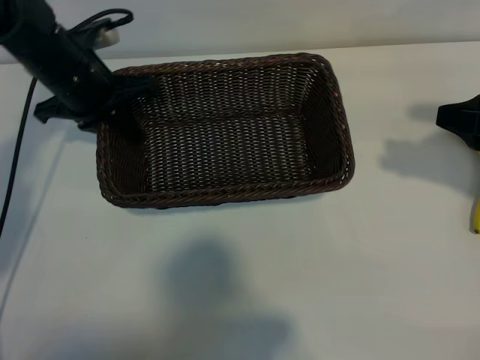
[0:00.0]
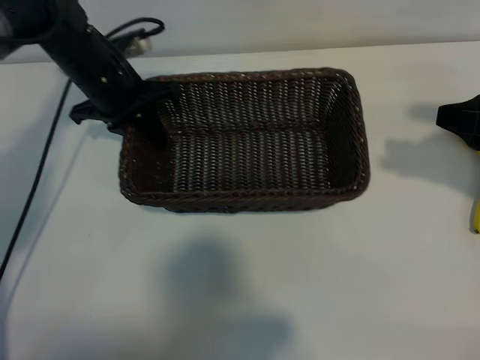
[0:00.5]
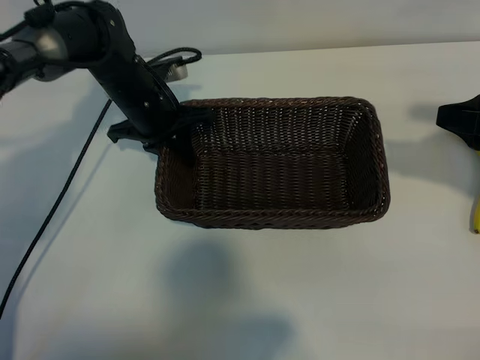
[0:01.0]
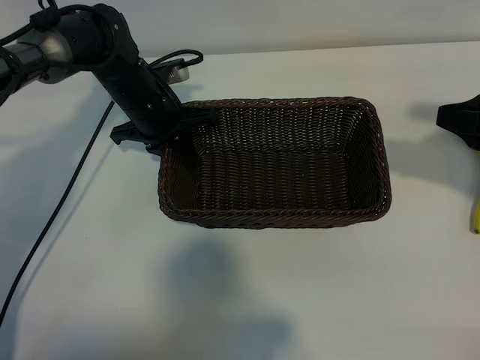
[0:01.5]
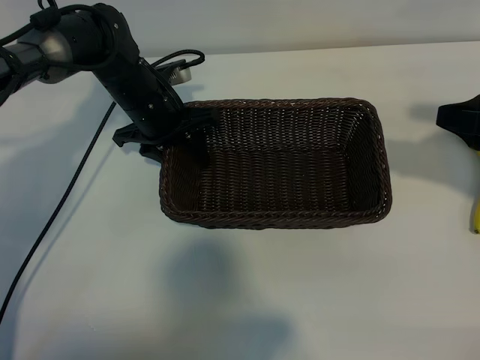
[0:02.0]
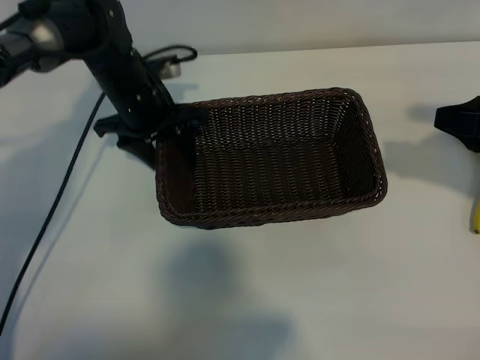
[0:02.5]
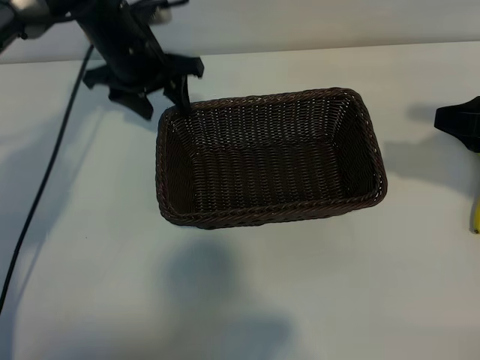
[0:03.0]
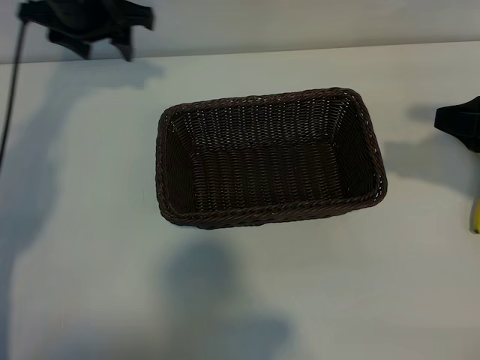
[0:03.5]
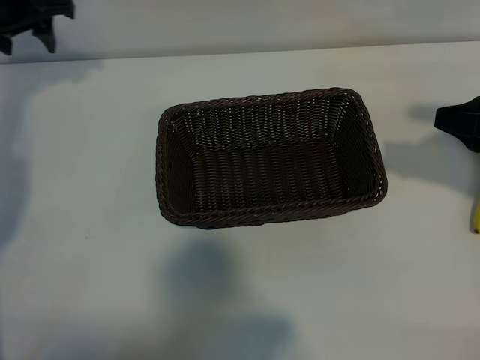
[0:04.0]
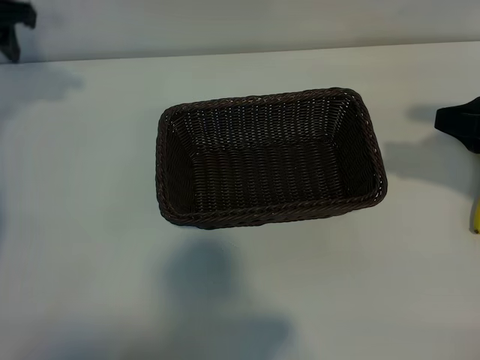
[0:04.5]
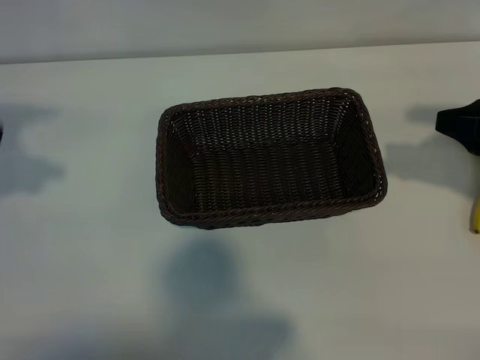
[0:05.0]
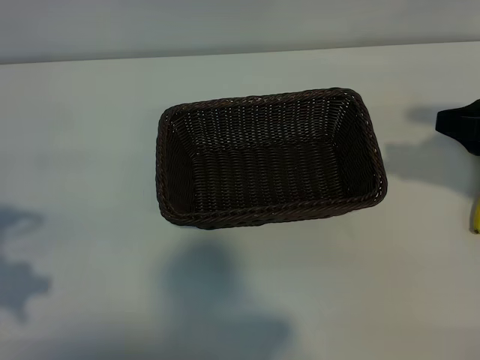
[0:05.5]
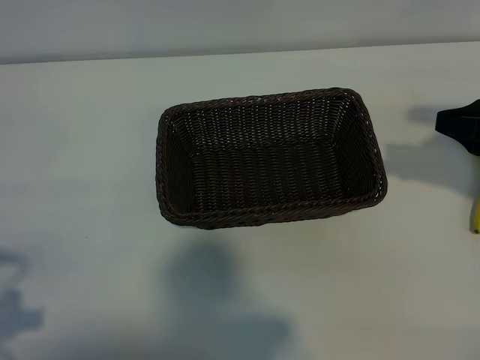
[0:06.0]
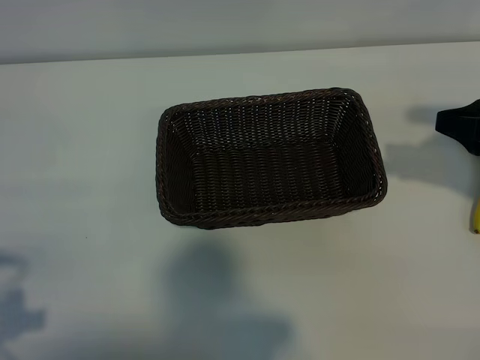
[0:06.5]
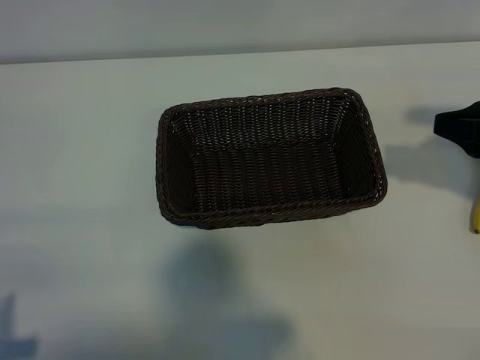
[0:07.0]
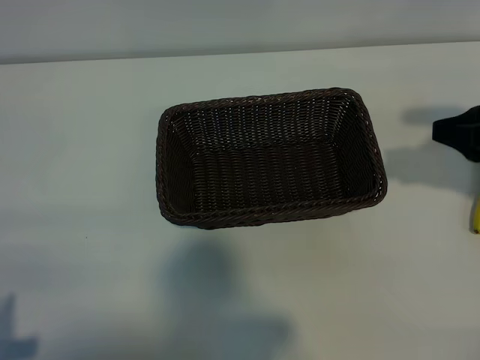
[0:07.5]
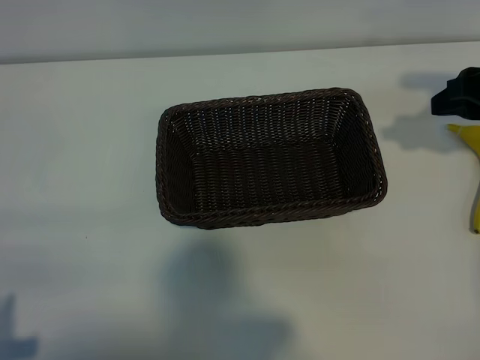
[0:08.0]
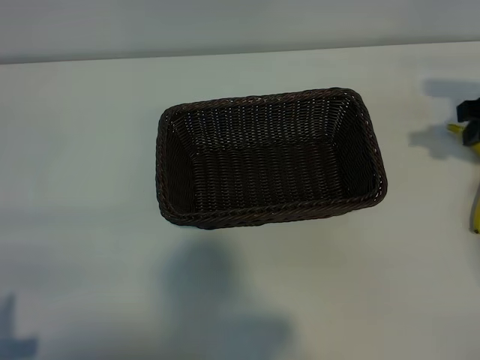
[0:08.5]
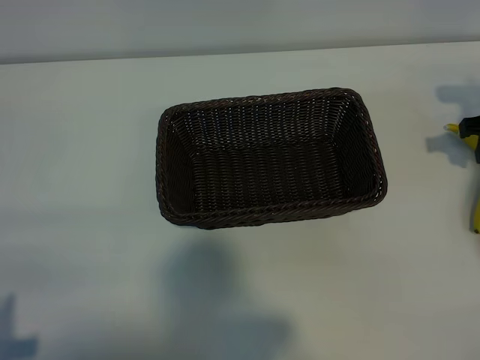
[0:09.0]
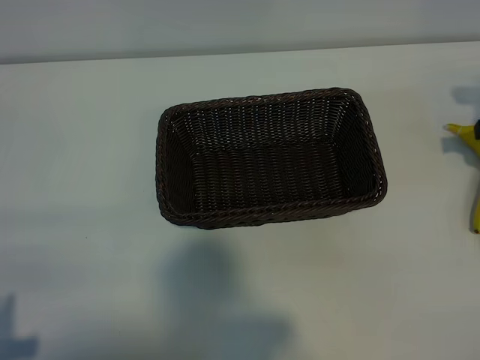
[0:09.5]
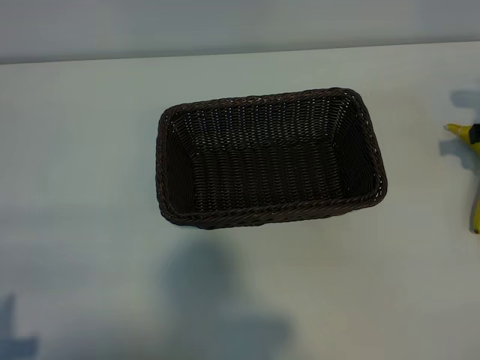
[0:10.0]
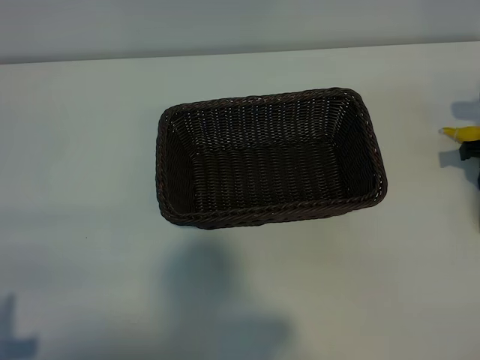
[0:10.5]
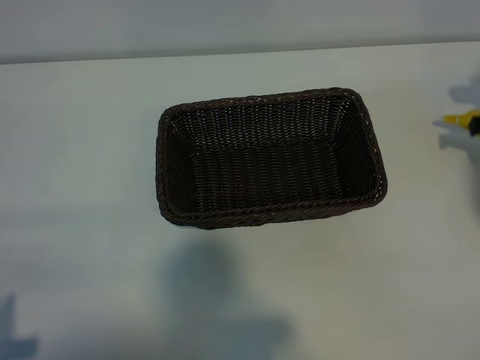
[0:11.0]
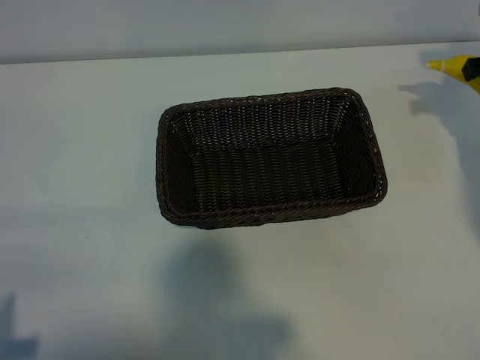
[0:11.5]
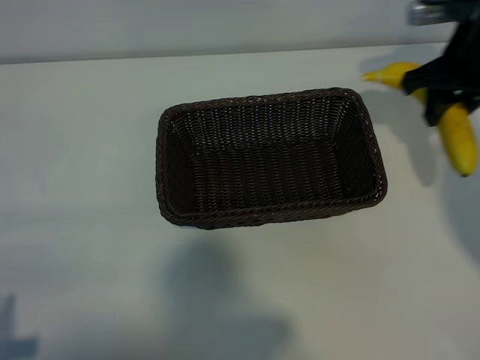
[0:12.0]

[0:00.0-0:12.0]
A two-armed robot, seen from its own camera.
Task of the whole recording: pick up the banana and put it into the basket.
Step, 0:00.0 to 0:02.5: Place the basket in the center of the table with the left gripper.
Step, 0:03.0 to 0:10.5: Grasp the banana with right gripper.

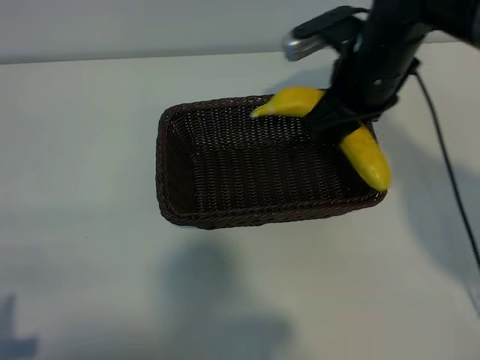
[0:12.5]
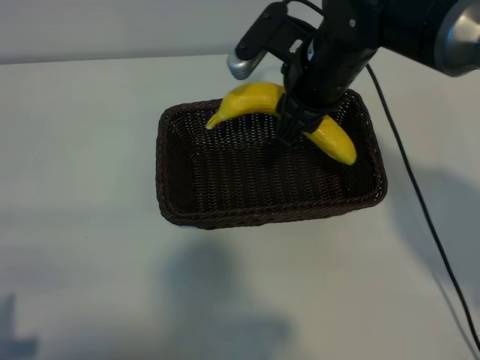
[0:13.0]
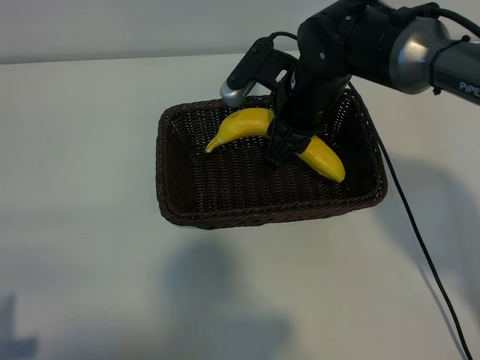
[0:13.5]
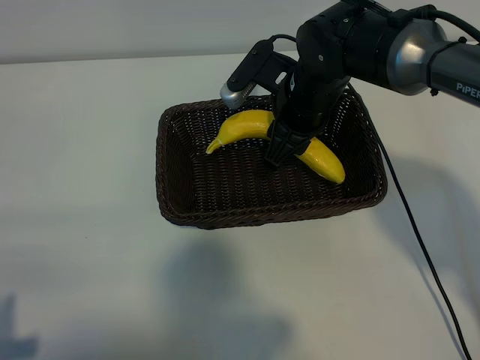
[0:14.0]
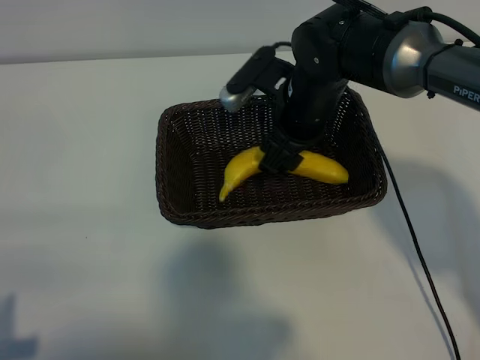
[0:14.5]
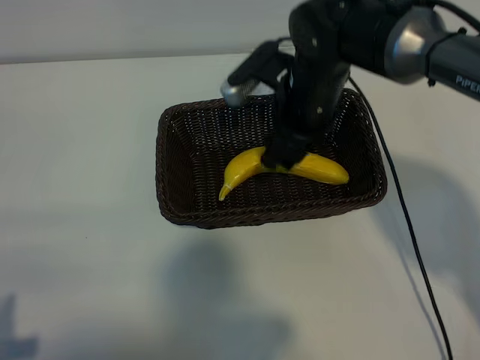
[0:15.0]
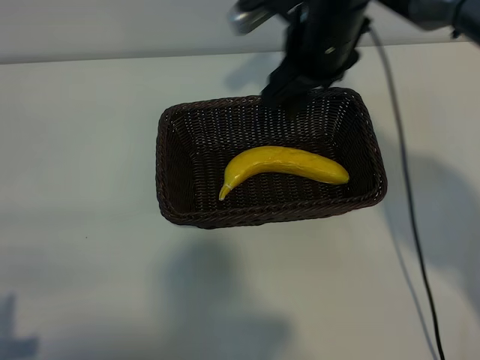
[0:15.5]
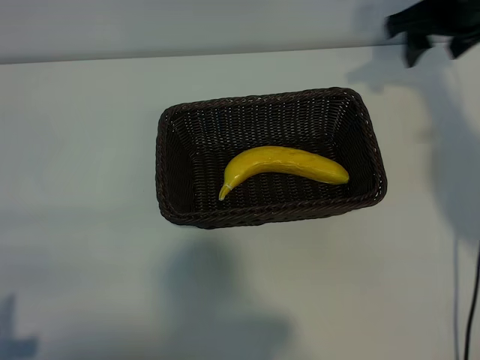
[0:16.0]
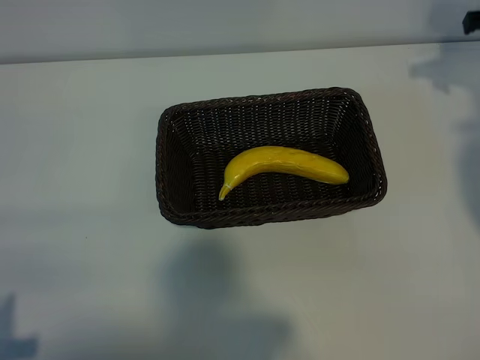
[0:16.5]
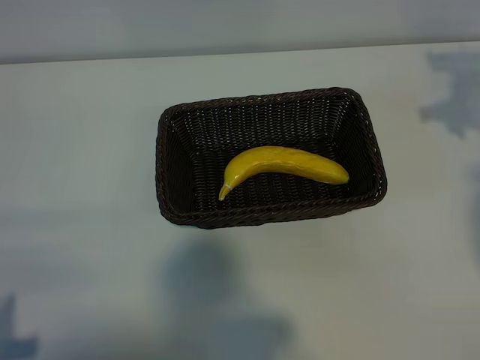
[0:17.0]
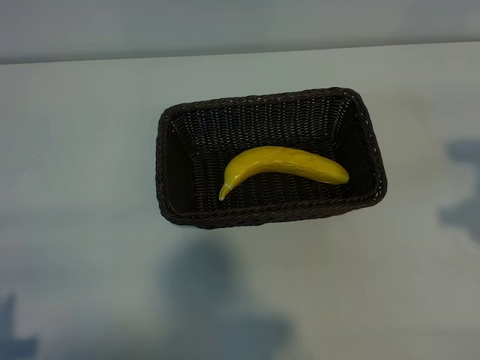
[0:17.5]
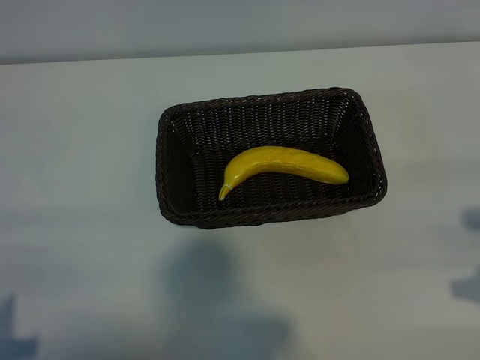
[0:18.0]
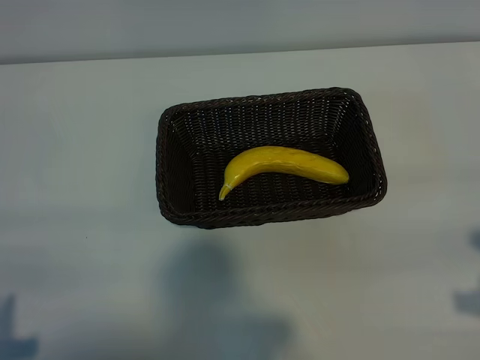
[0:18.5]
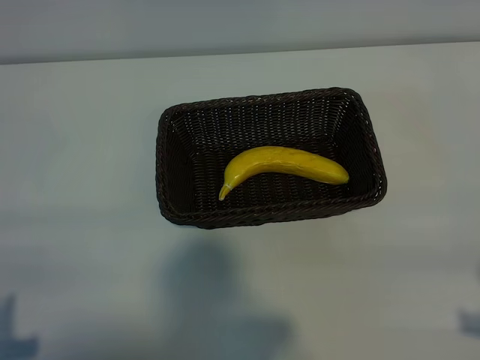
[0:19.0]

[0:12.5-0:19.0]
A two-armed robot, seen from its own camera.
Task of the whole recording: pick up the banana and put it into the basket.
Step, 0:12.5 to 0:15.0: Place the banana in the basket with right gripper.
